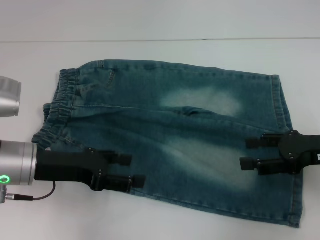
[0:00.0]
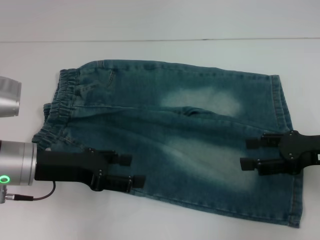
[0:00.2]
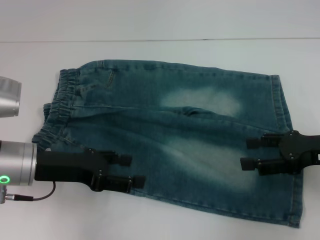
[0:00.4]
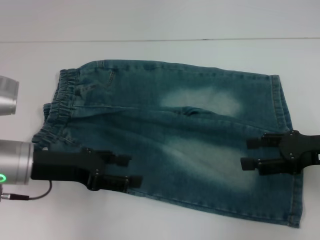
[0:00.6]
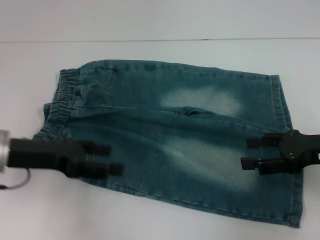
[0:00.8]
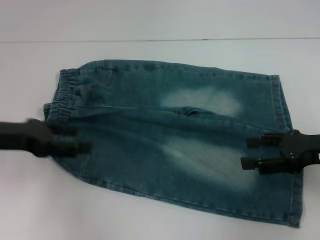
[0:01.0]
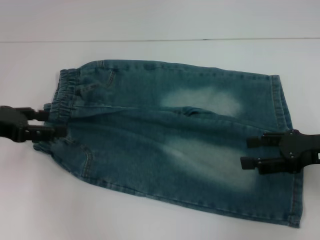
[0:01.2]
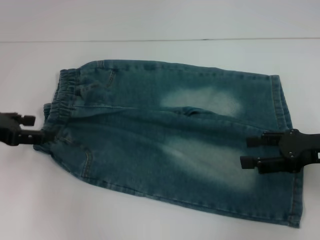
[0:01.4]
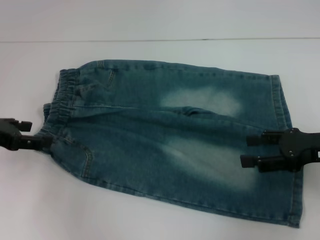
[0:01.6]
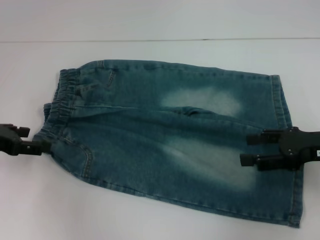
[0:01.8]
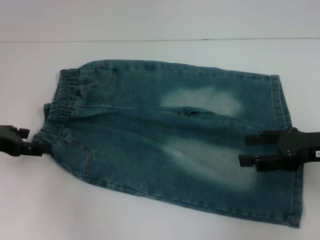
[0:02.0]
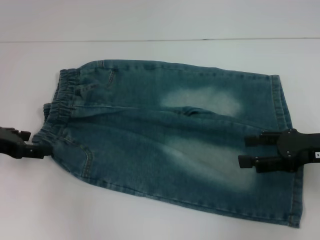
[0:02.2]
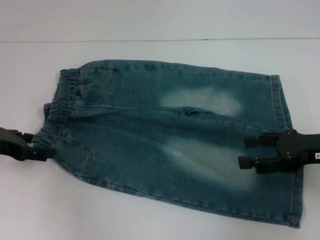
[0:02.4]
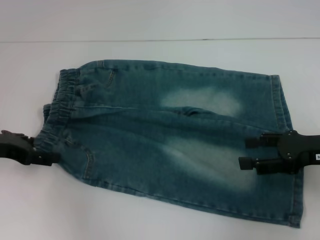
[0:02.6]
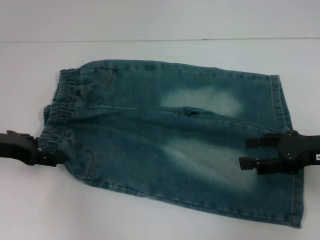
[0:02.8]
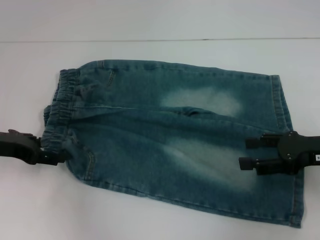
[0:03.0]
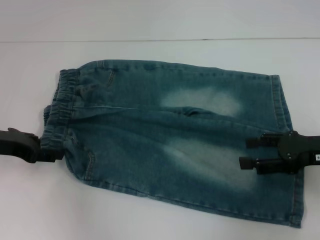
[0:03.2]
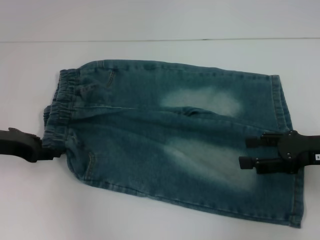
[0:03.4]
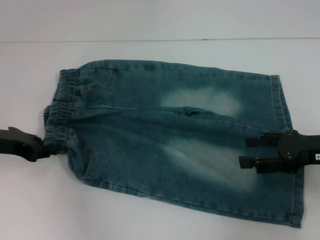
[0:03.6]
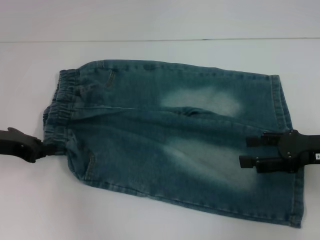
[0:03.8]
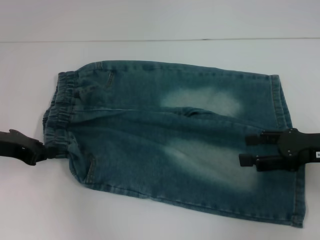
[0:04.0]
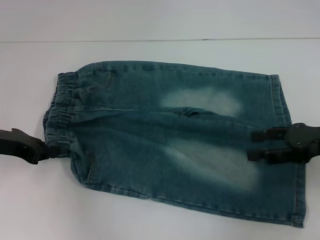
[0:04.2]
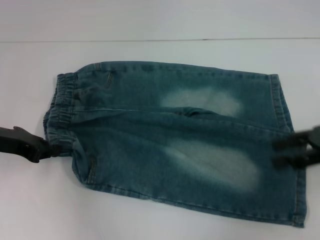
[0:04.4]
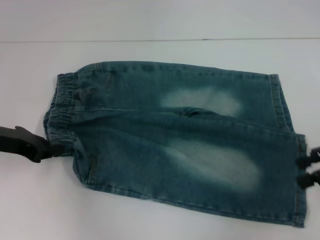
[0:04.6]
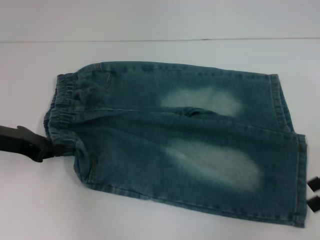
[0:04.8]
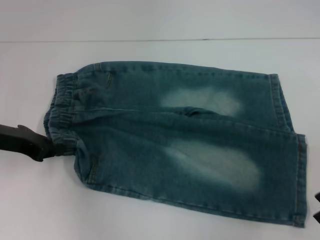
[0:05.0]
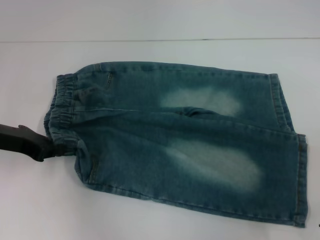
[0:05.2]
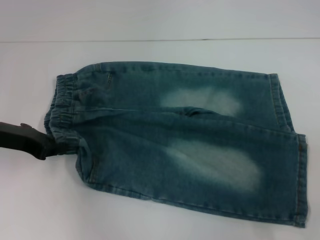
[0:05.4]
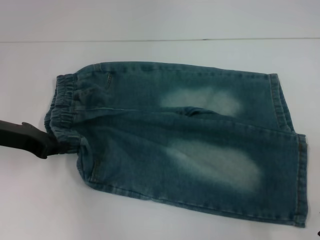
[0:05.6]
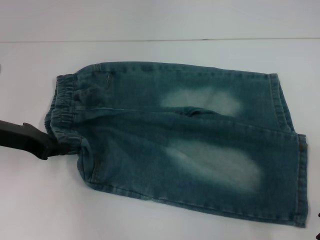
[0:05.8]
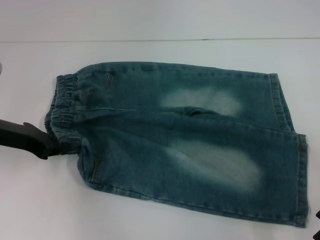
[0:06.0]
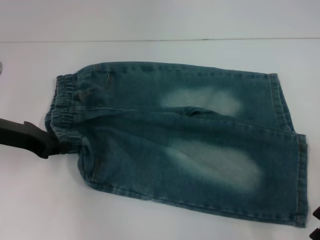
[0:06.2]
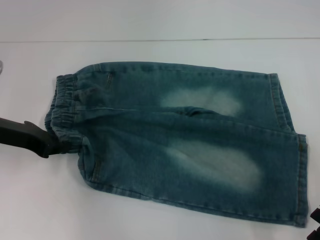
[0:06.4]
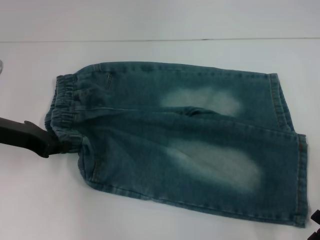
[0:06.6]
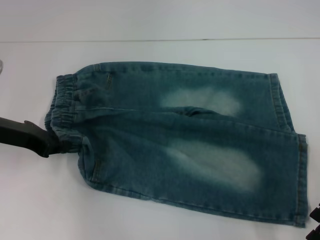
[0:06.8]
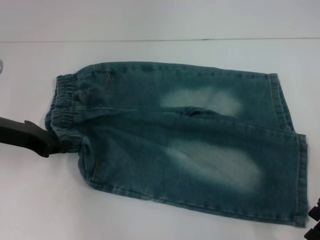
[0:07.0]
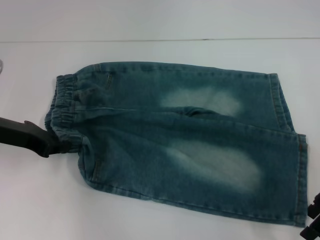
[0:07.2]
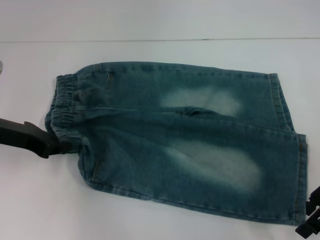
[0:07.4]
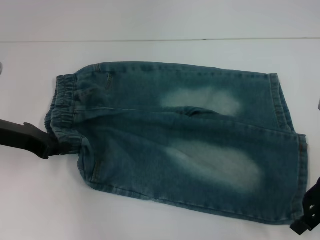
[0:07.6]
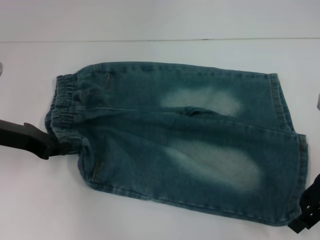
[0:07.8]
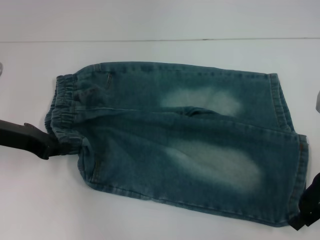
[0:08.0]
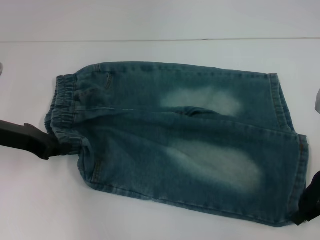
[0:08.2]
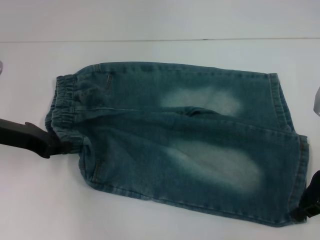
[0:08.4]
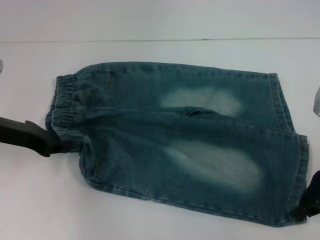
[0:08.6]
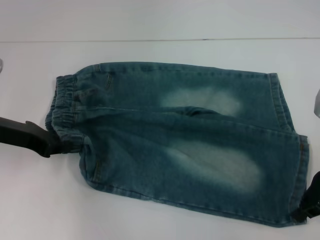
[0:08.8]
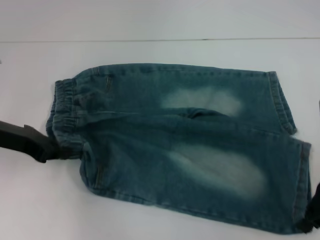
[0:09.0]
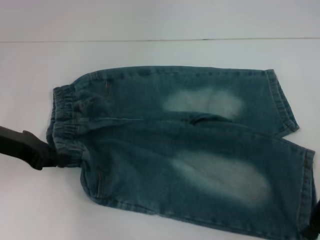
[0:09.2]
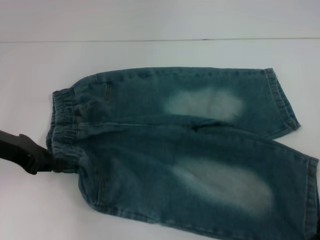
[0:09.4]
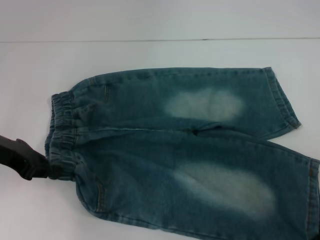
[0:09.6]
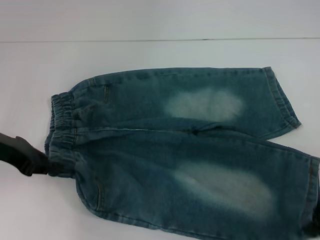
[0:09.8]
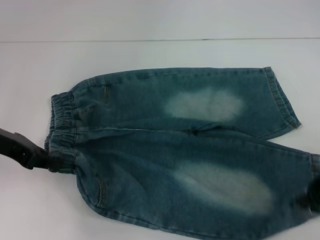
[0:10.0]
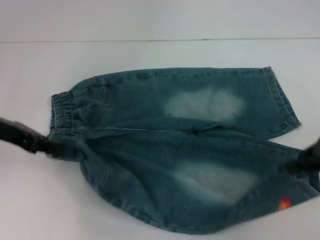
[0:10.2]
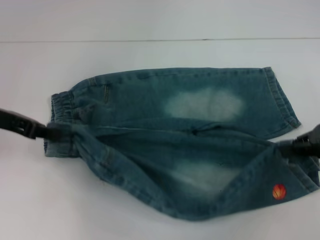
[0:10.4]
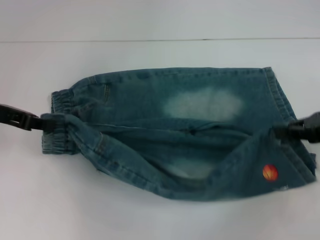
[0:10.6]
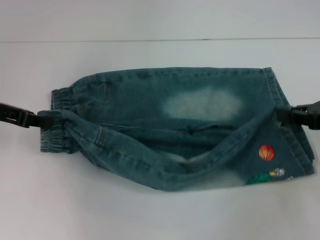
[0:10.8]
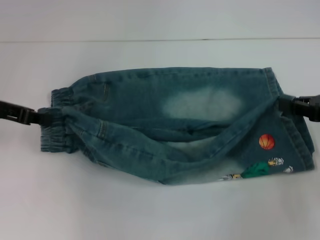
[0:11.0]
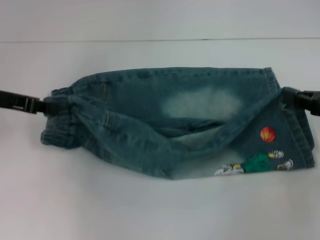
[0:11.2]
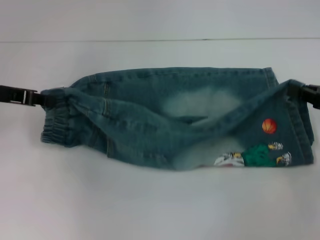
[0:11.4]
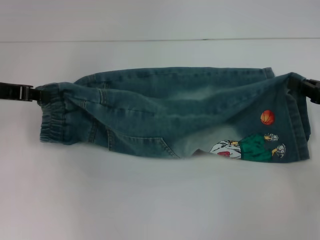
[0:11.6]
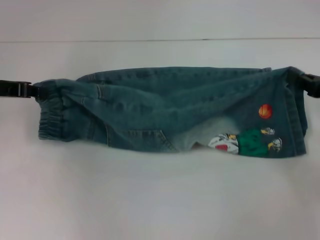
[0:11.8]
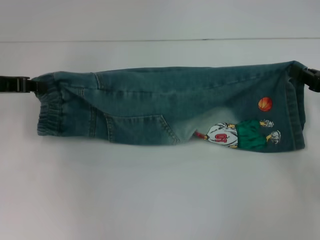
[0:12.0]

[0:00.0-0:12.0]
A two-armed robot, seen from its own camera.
Step, 0:00.0 to 0:03.8: Hold the lower left waistband with your left hand.
Step, 0:04.0 to 0:08.6: Grab the lower right pant leg with your right hand.
0:00.0 to 0:01.6: The left gripper travels to the left by about 10 cm.
0:01.6 to 0:03.0: The grippers move only a little.
0:03.0 to 0:04.4: The right gripper ends up roughly 5 cm from where it was. Meanwhile the left gripper closes.
0:06.0 to 0:07.6: The grippers stay close to where they were, moving slightly.
0:07.6 to 0:09.0: The right gripper closes its fingers.
0:09.0 to 0:10.4: The right gripper shifts by about 5 cm.

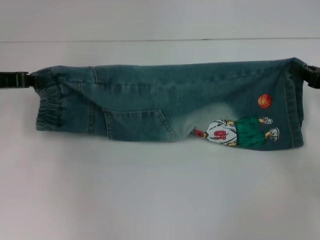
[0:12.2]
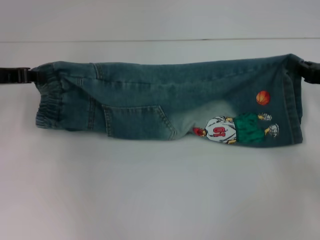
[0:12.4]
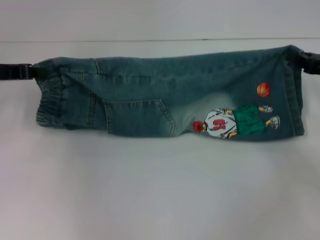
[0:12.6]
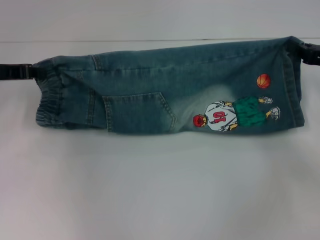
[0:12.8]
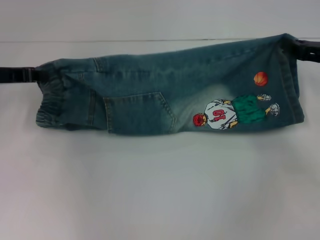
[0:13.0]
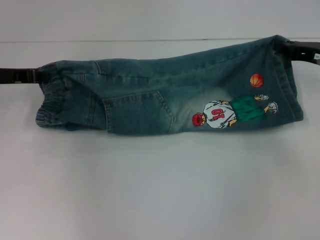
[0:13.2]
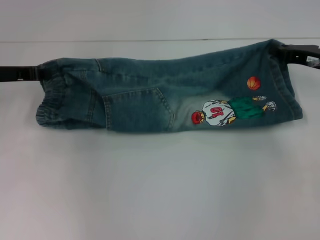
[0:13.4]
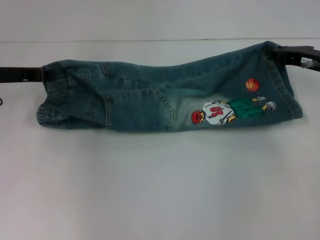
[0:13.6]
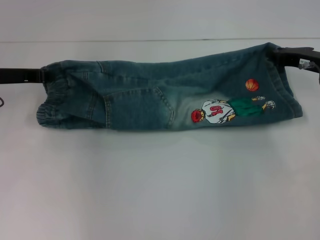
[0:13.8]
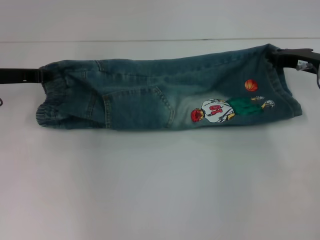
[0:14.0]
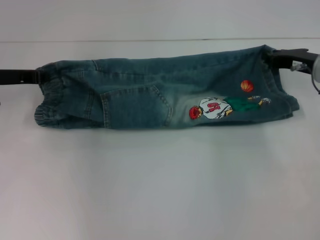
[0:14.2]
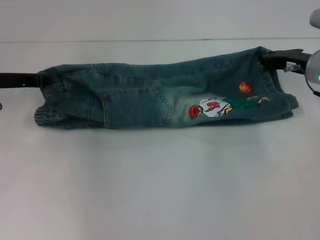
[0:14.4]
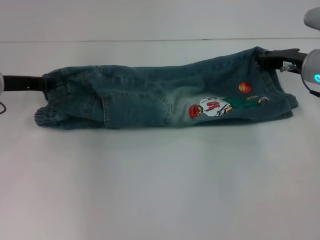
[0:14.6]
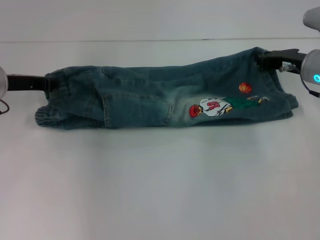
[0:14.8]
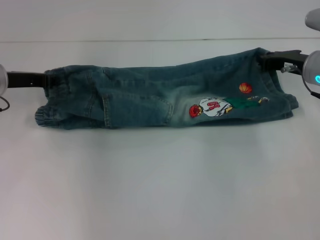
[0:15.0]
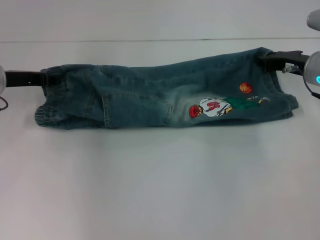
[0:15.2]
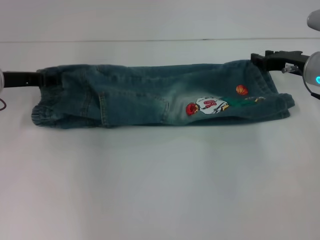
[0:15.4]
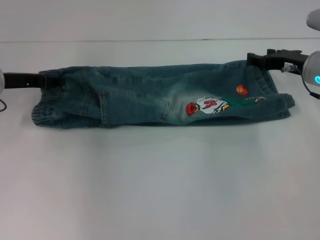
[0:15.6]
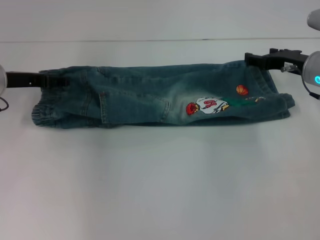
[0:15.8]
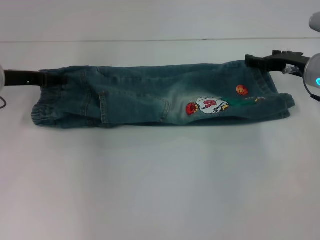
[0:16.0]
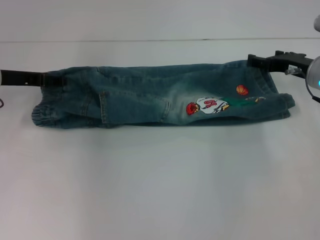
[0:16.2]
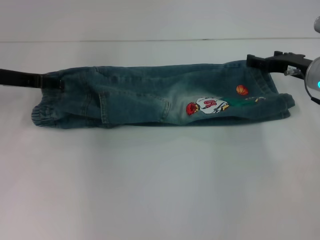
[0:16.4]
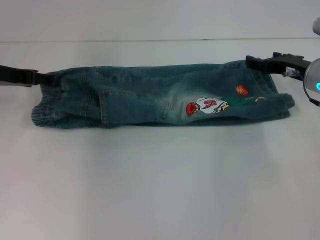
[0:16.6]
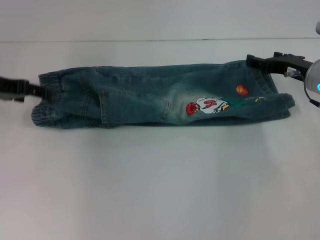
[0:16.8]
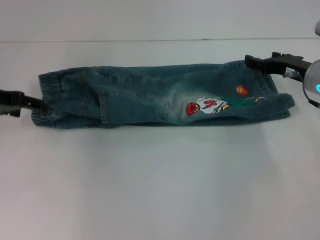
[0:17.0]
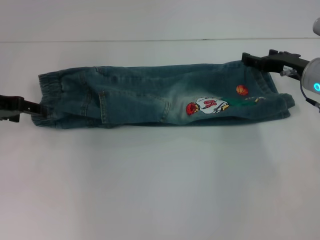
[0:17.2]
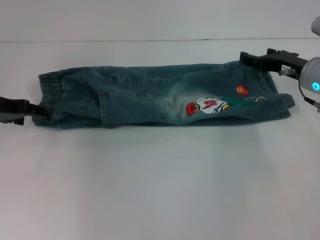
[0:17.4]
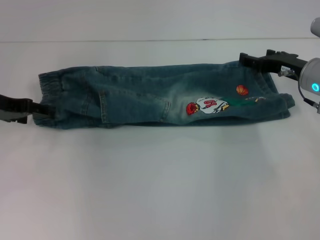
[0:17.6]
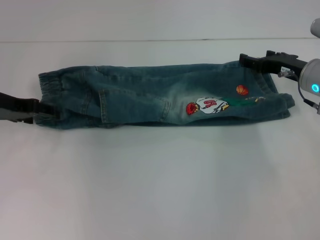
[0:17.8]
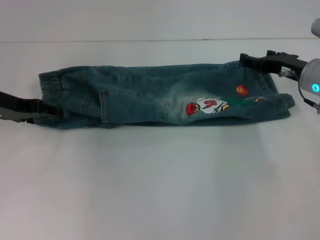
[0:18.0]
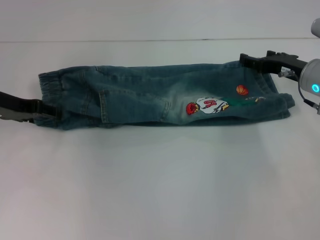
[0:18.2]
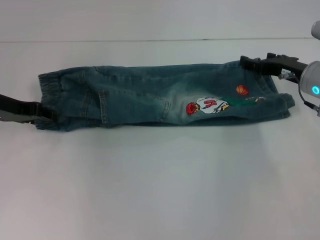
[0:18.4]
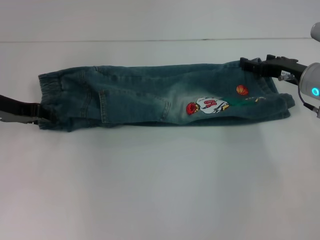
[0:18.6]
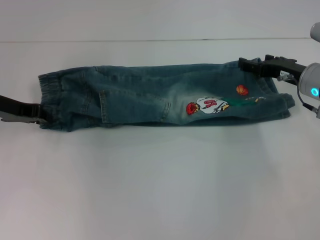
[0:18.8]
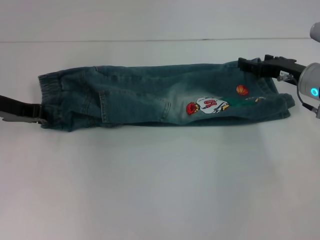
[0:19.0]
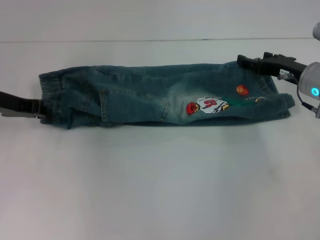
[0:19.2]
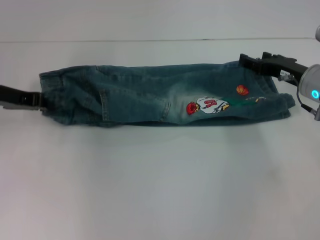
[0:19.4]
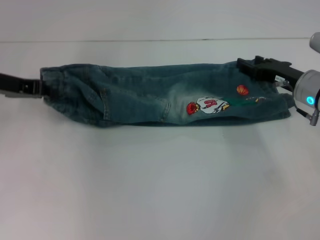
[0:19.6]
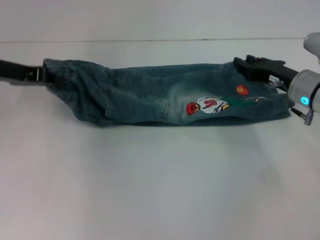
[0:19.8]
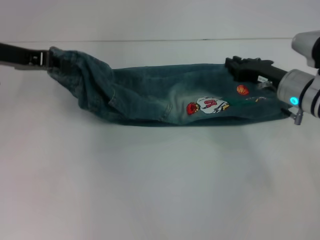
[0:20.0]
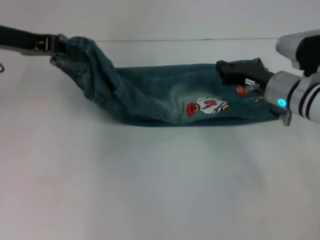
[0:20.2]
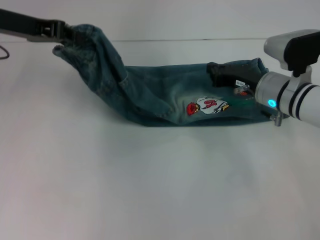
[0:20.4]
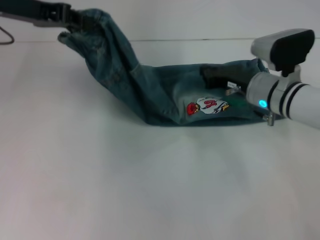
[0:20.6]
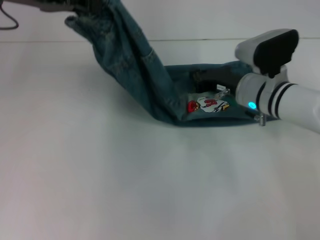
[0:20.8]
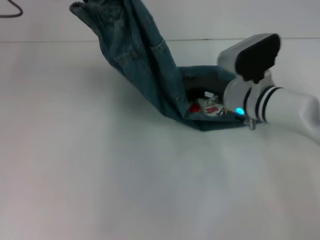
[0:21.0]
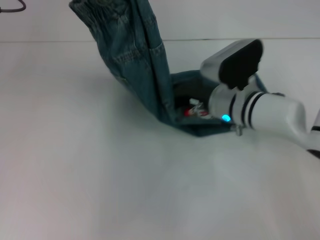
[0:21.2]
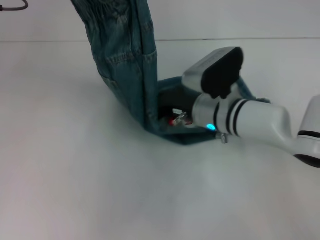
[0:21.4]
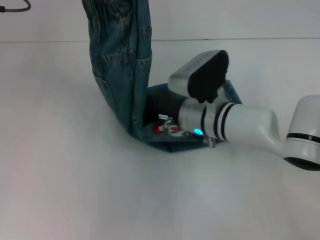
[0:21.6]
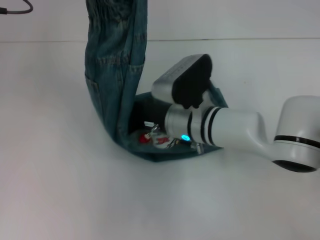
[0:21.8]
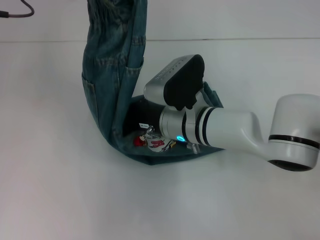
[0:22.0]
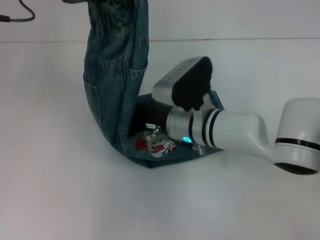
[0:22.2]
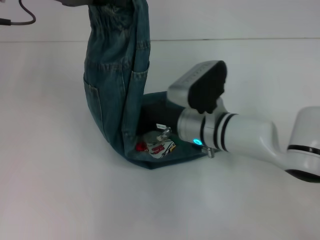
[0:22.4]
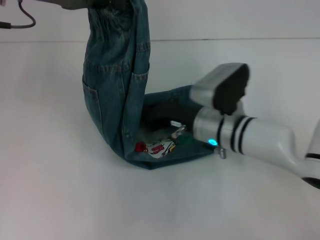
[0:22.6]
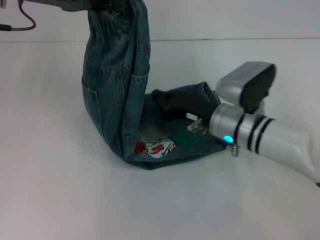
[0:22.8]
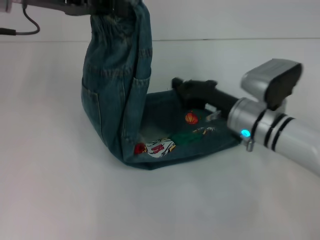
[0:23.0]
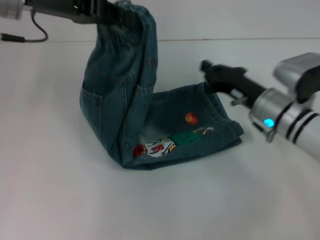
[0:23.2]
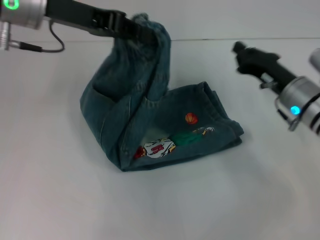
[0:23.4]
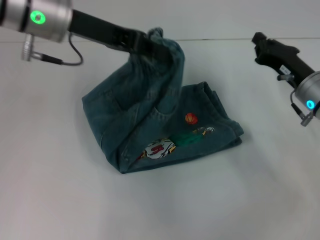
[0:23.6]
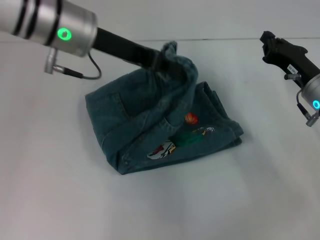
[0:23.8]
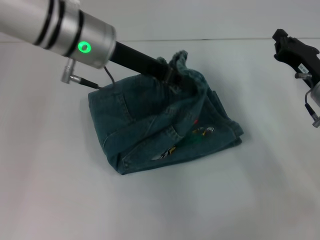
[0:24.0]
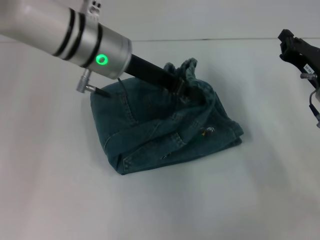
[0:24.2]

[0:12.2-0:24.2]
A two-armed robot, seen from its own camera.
Step, 0:12.2 to 0:15.2: Fold upward with your right hand.
Step, 0:15.6 to 0:16.4: Fold upward with your left hand.
Step, 0:16.6 to 0:18.8: Hold the waistband with your left hand.
Step, 0:19.2 to 0:22.4: Press the middle of the pants with your right hand.
0:12.2 to 0:13.8: The right gripper travels forward and to the left by roughly 10 cm.
0:13.8 to 0:15.2: The grippers move only a little.
0:15.2 to 0:16.6: The right gripper opens its fingers. Meanwhile the left gripper opens its fingers.
0:16.6 to 0:18.2: The grippers make only small movements.
0:18.2 to 0:19.8: The left gripper changes place by some 5 cm, and closes.
0:19.8 to 0:21.2: The left gripper travels upward and to the right by some 10 cm, while the right gripper moves to the left, some 15 cm, and closes.
0:21.2 to 0:22.6: The right gripper moves about 10 cm to the left and comes back.
0:22.6 to 0:24.2: The right gripper heads to the right, covering approximately 15 cm. Meanwhile the left gripper is displaced to the right and downward by about 15 cm.
